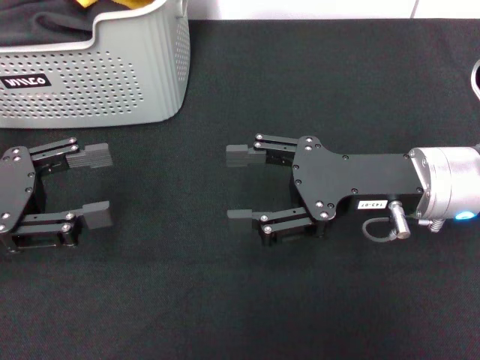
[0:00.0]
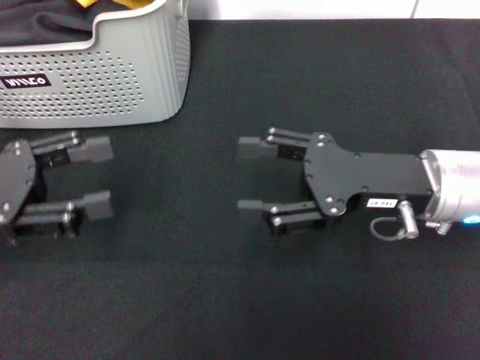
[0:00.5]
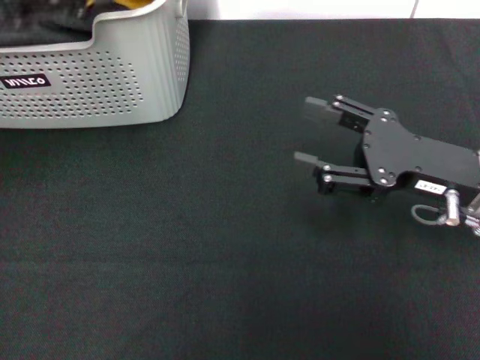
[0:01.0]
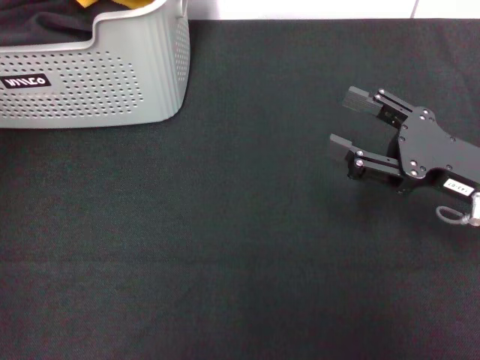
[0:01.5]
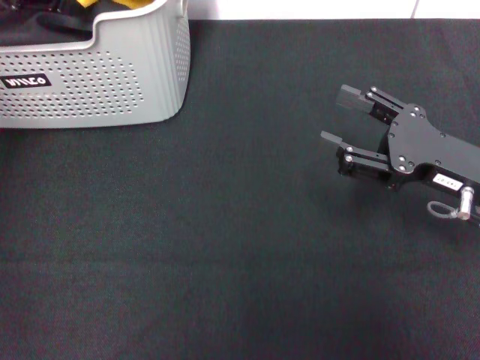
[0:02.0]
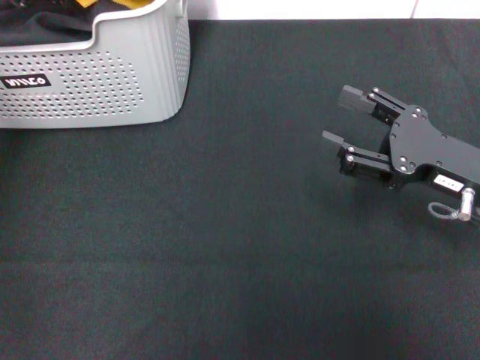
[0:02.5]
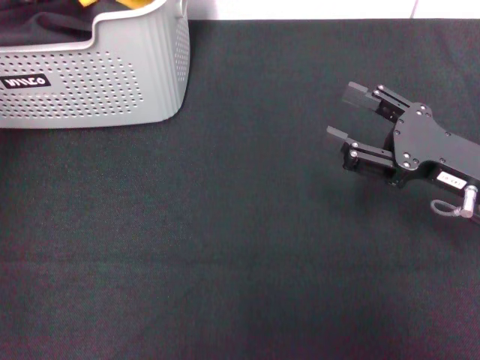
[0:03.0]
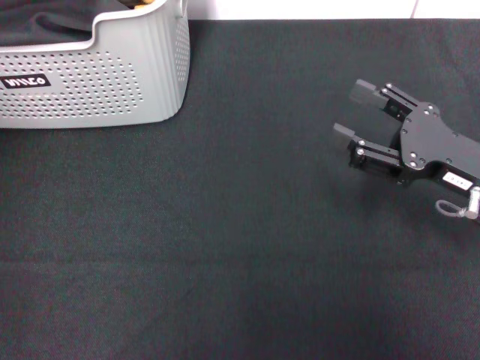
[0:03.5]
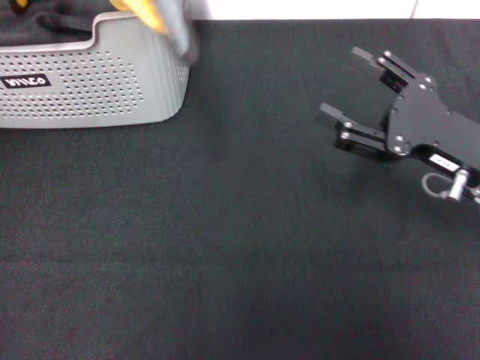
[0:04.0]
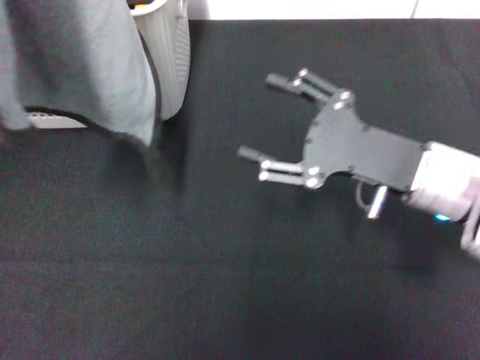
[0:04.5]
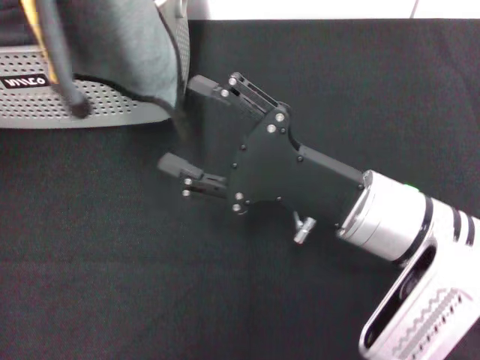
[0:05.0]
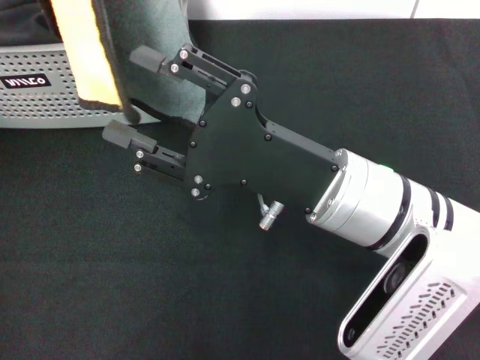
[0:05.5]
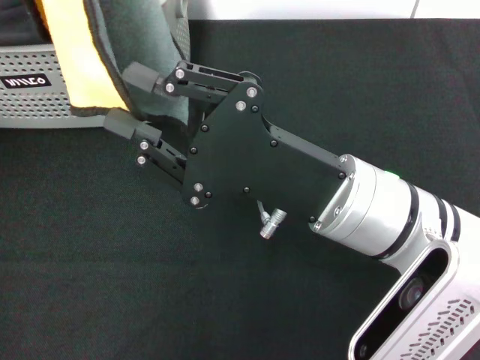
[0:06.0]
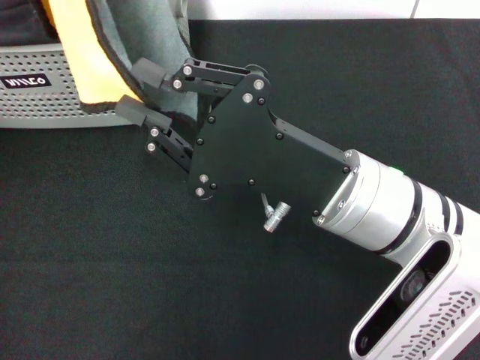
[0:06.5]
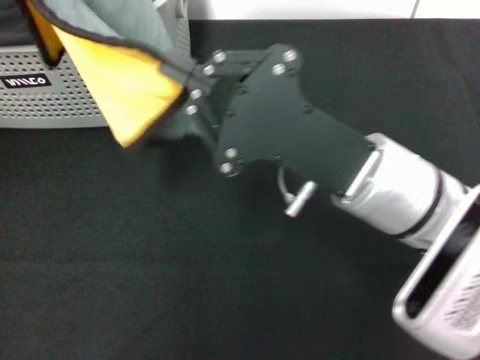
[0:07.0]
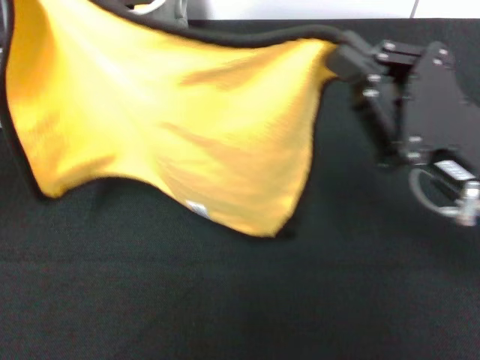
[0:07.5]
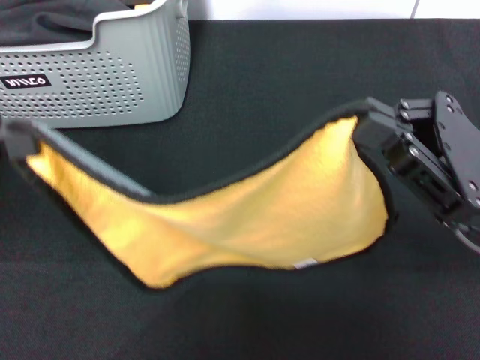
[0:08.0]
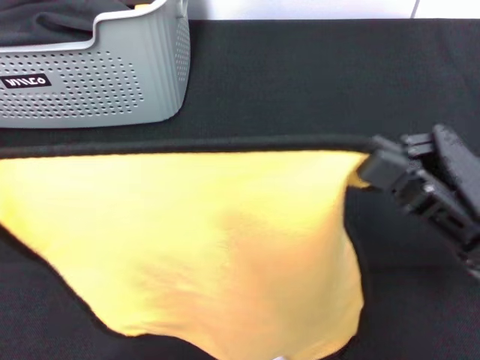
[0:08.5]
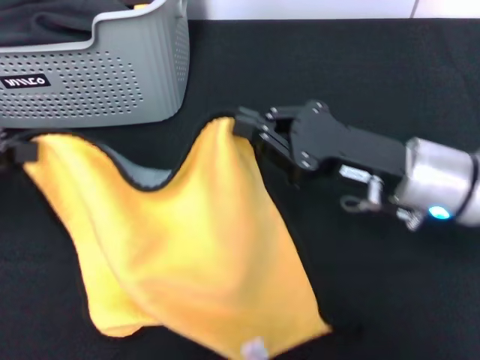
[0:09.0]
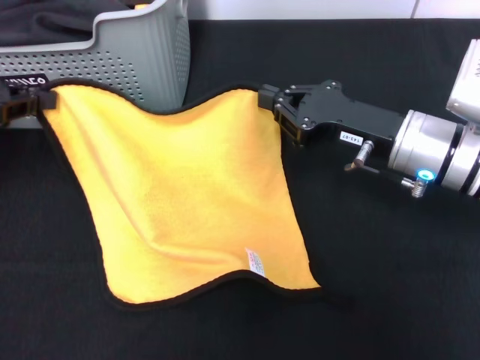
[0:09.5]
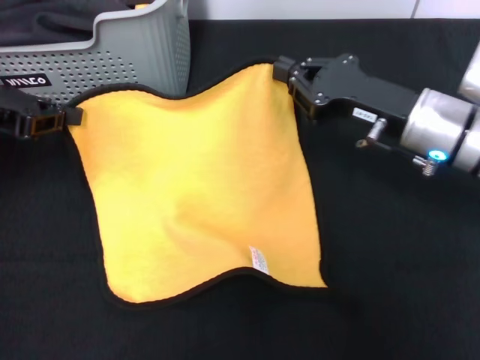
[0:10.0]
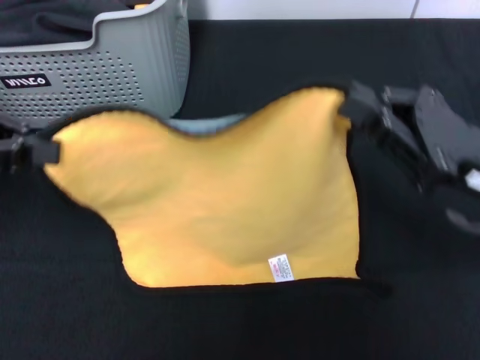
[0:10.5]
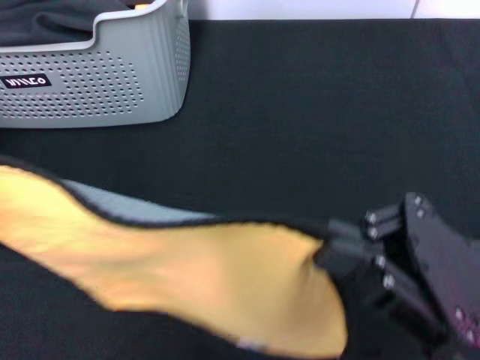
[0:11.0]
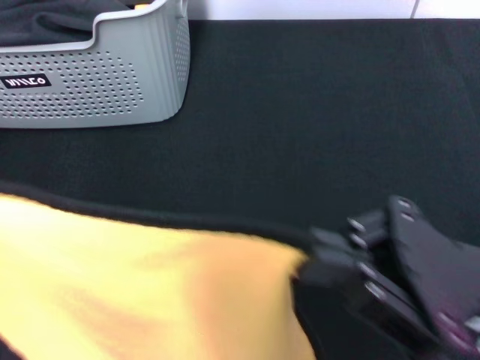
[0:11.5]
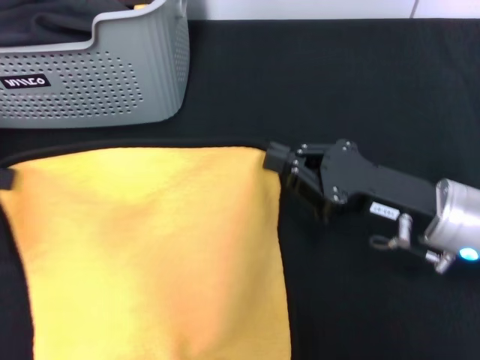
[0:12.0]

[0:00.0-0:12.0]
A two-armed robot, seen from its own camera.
Task of the whole recording: pick up the towel from the storage box and lay it flat on the black tablecloth.
Step, 0:00.0 to 0:02.5: Pick up a towel with the left gripper.
Step, 0:03.0 to 0:06.5: Spread the towel flat with the left gripper.
0:00.0 to 0:02.0: The right gripper heads to the right, covering about 5 cm. The left gripper shifts roughly 20 cm upward and forward.
0:02.0 to 0:04.0: The left gripper travels upward and backward by some 10 cm, and closes its fingers.
0:04.0 to 0:06.0: The right gripper is displaced to the left by about 15 cm, and closes its fingers.
0:06.0 to 0:08.0: The right gripper travels to the right by roughly 15 cm, and closes. The left gripper goes approximately 10 cm downward.
0:08.0 to 0:10.0: The left gripper travels forward and downward by some 10 cm. The right gripper shifts about 10 cm forward.
0:10.0 to 0:12.0: The two grippers go about 10 cm backward.

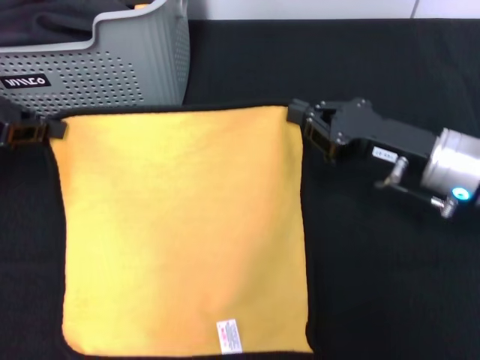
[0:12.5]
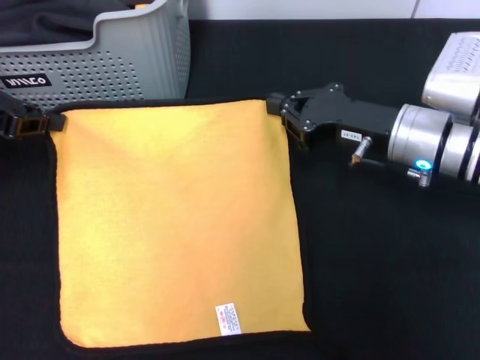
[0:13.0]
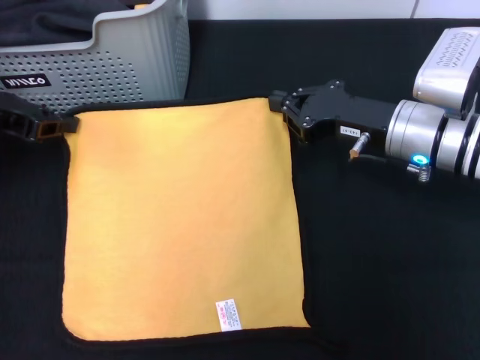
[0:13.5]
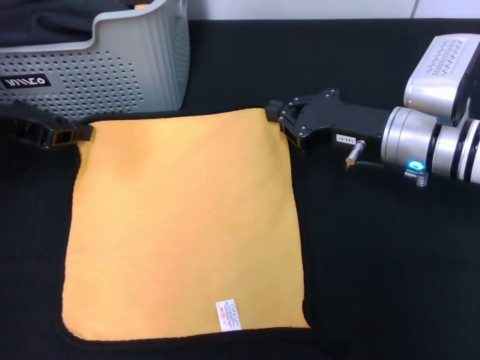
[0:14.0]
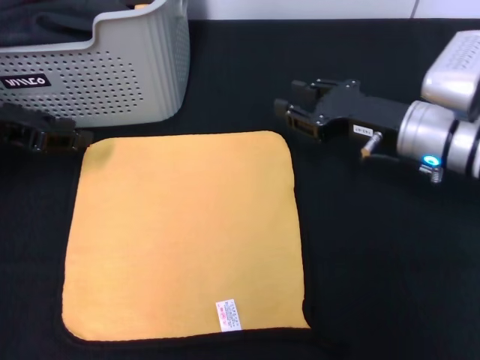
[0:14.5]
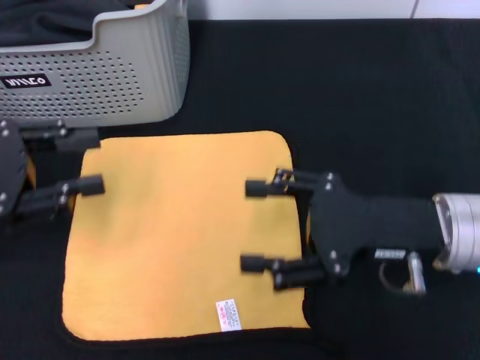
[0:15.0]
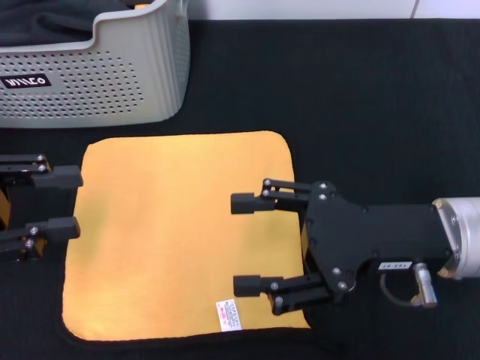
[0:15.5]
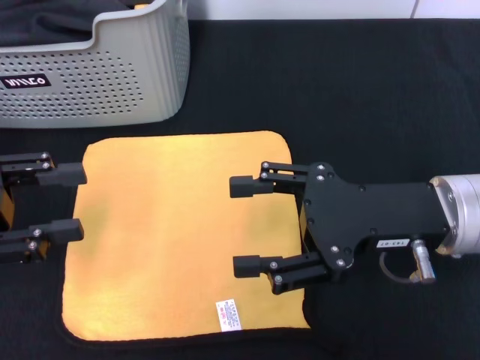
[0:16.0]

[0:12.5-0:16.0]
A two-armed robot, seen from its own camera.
Task of the whole recording: pick up the towel from the storage box and lay it flat on the black tablecloth.
0:14.5 to 0:16.0: The grippers both shift backward by approximately 10 cm. The left gripper opens, while the right gripper opens its fingers.
